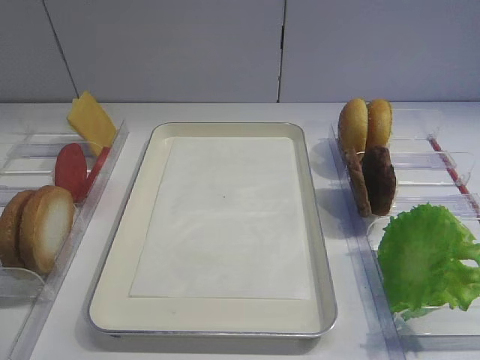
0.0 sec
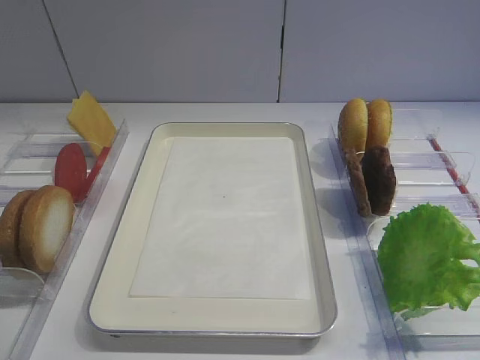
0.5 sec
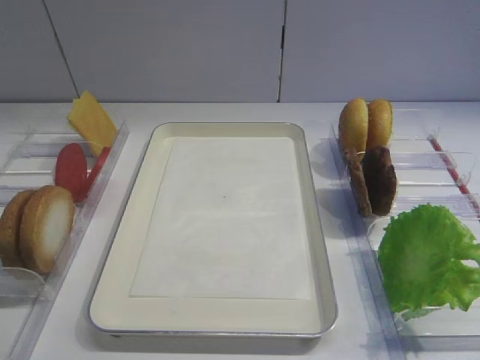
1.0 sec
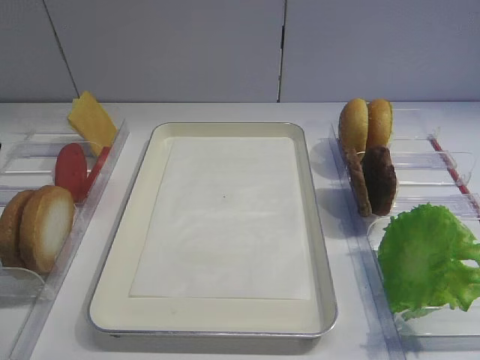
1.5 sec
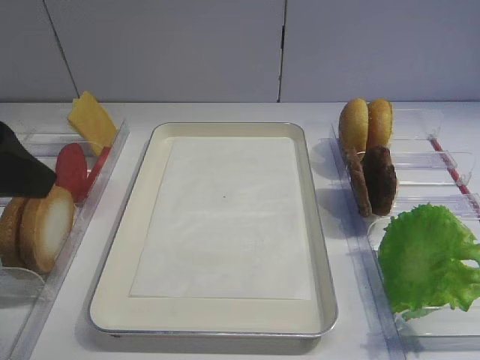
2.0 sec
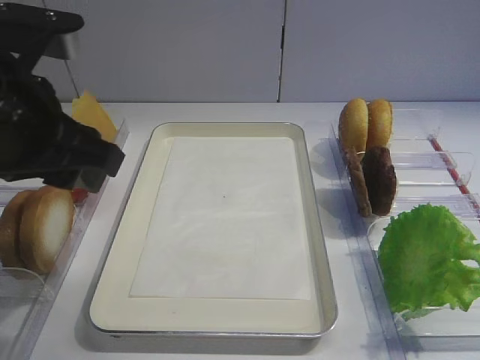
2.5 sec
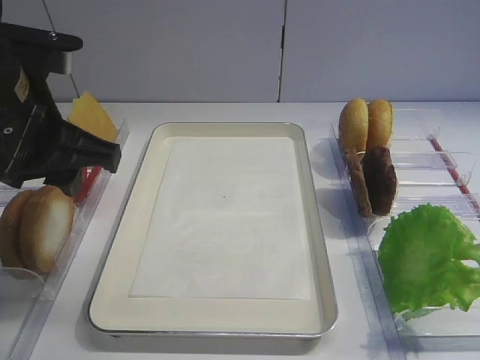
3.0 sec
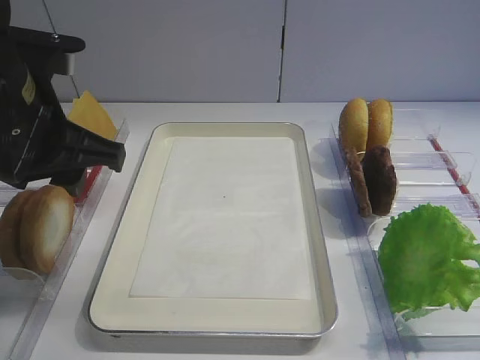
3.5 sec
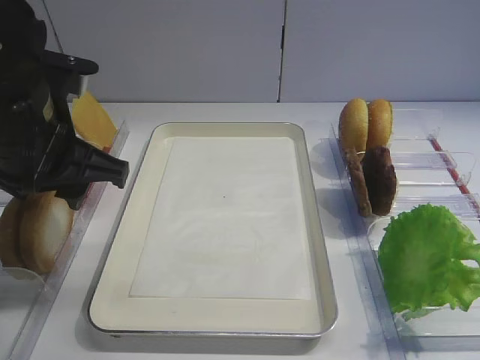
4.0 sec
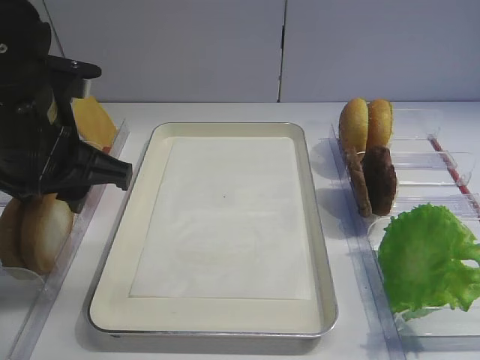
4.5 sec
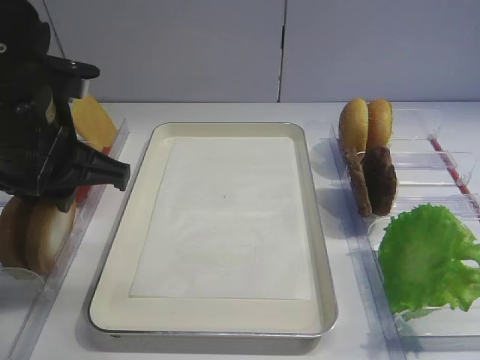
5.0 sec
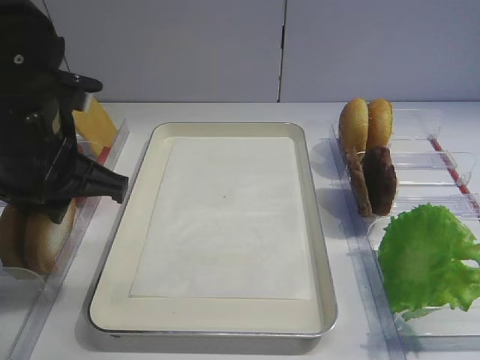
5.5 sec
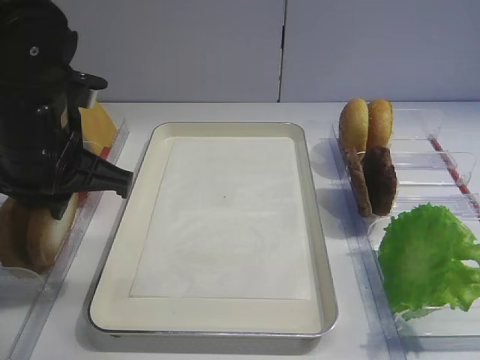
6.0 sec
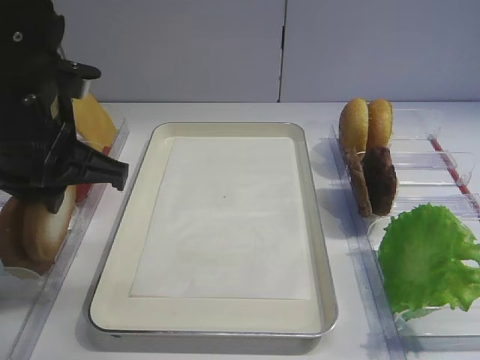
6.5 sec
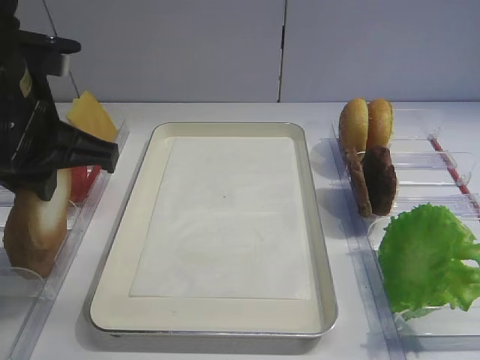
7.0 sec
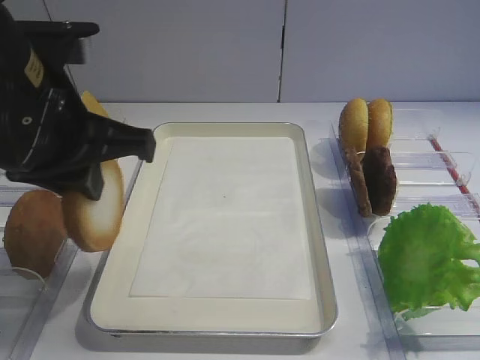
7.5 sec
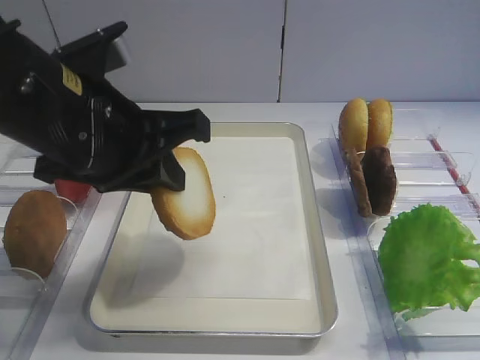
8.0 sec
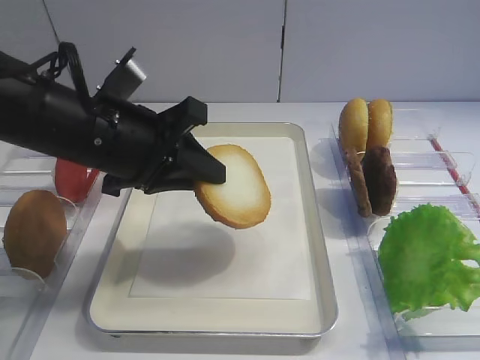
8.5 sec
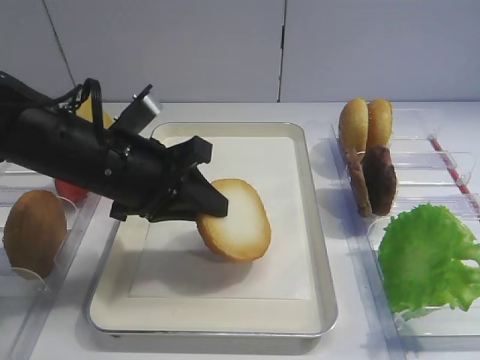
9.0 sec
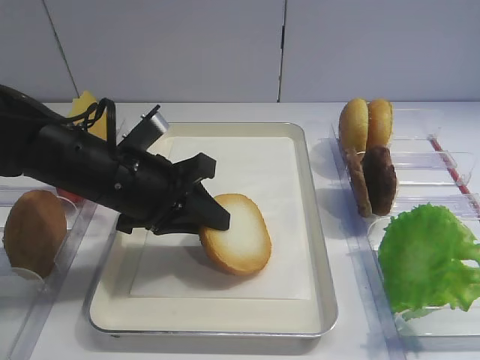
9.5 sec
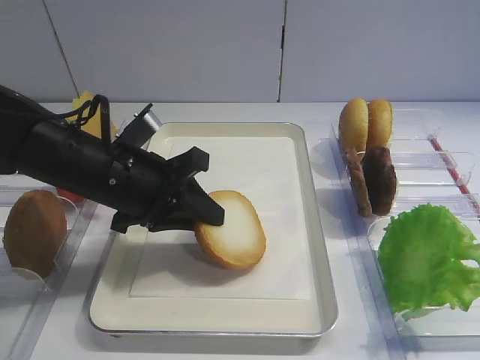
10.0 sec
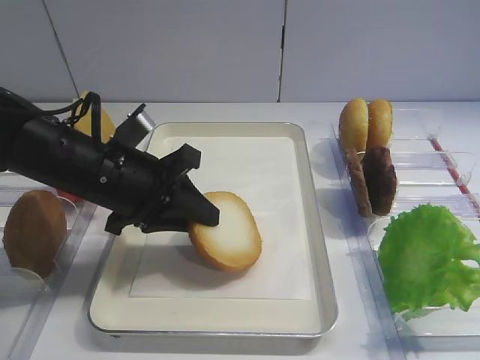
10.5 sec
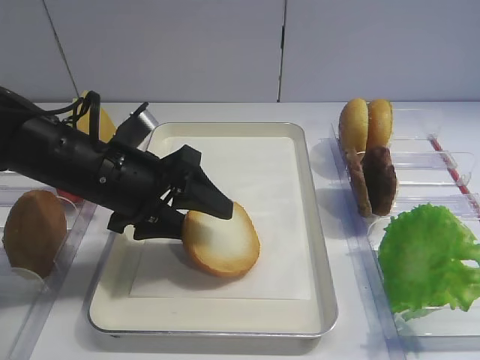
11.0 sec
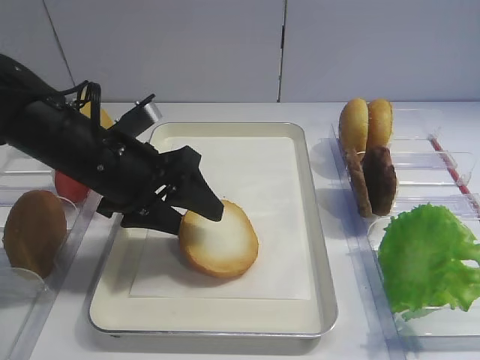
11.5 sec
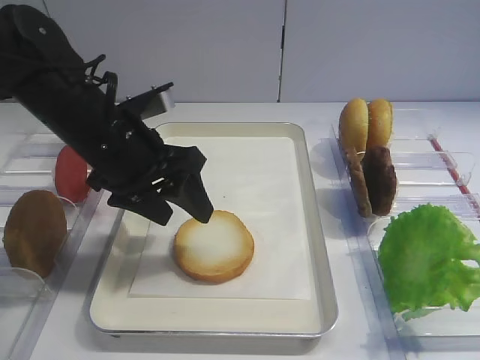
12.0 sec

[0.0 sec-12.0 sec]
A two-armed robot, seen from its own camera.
Step, 0.0 sec to 7.0 sec: Pick up the bread slice with the left gripper.
Step, 7.5 sec to 11.5 sec: Place the bread slice on the tray with the left gripper.
2.0 sec to 4.0 sec: The left gripper moves forward, downward and to the right, about 10 cm.
4.0 sec to 6.0 sec: The left gripper closes its fingers.
6.0 sec to 8.0 sec: The left gripper moves some 5 cm.
8.0 sec to 10.0 sec: The left gripper shifts roughly 10 cm downward and forward.
10.0 sec to 12.0 sec: The left gripper opens.

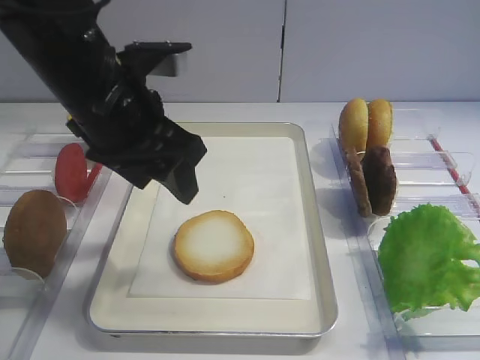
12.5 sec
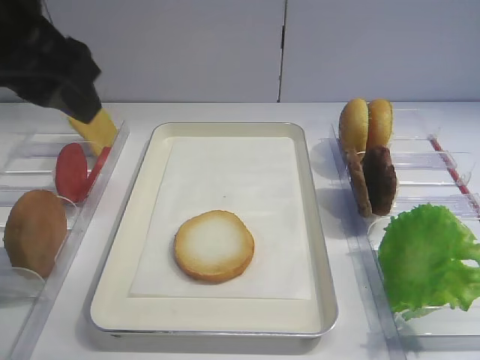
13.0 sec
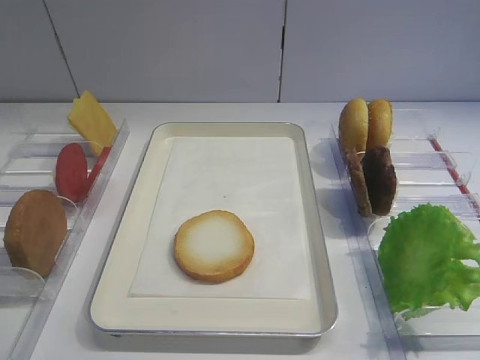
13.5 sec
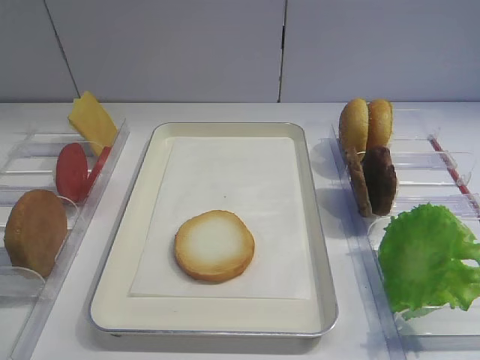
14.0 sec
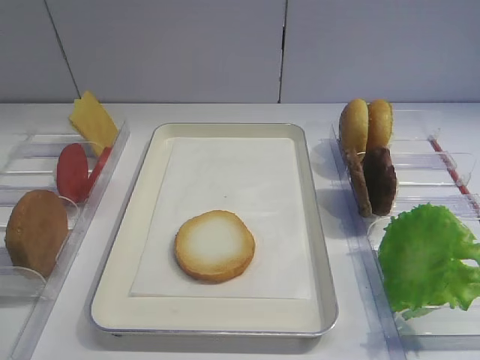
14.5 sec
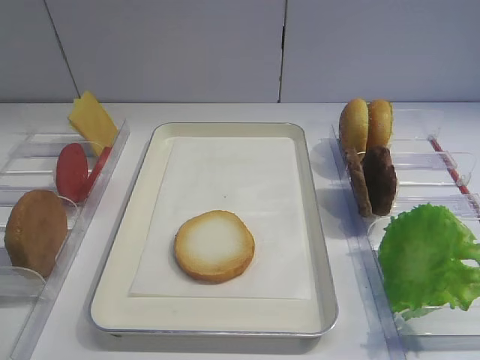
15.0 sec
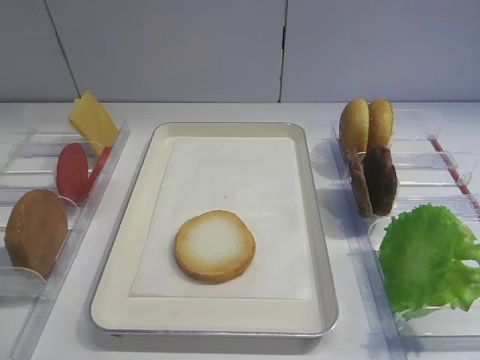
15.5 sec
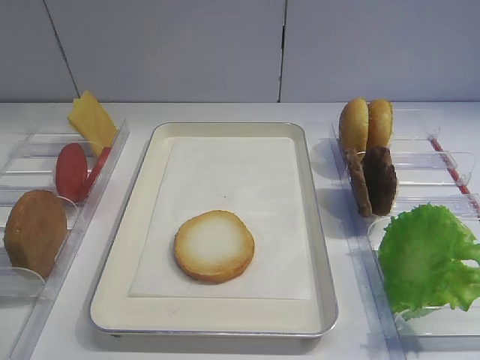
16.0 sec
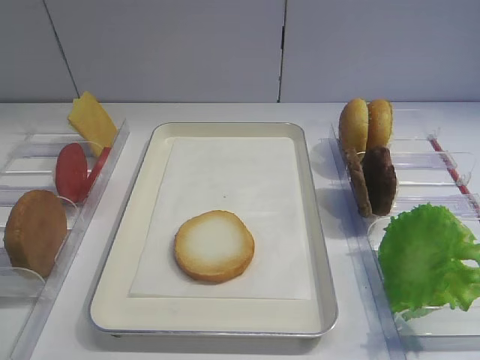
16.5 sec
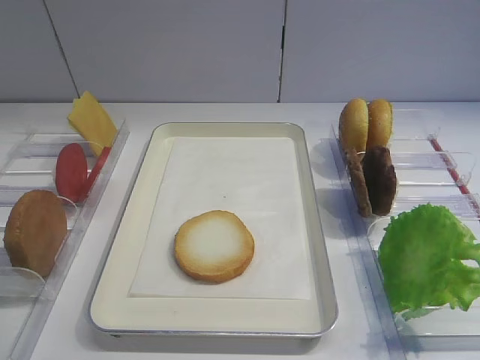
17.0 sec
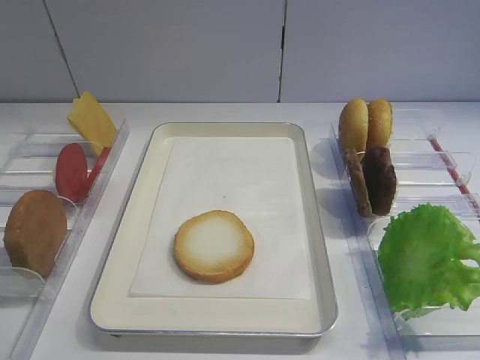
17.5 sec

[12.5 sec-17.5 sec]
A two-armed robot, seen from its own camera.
12.5 sec to 15.0 sec: The left gripper is displaced backward and to the left by roughly 35 cm.

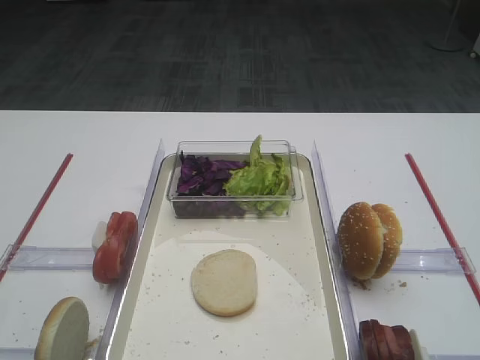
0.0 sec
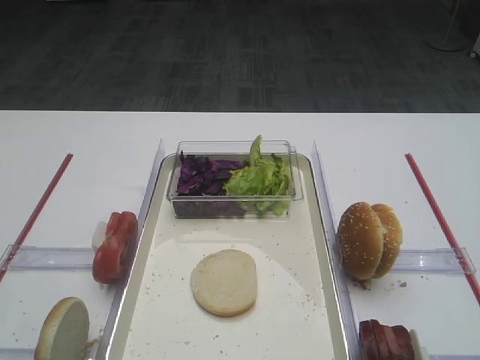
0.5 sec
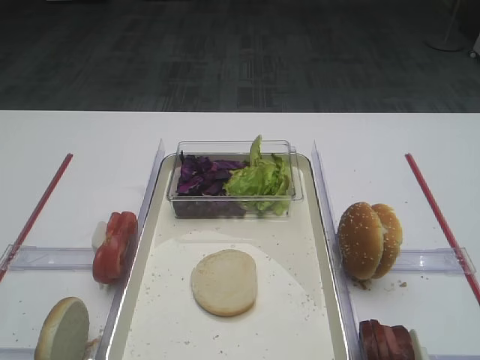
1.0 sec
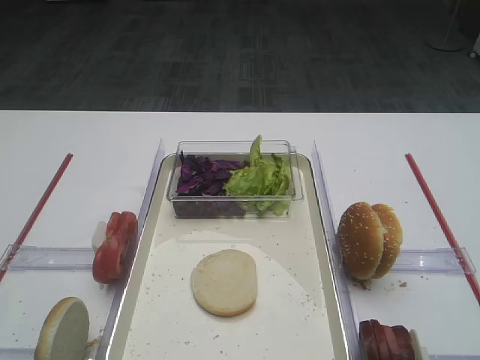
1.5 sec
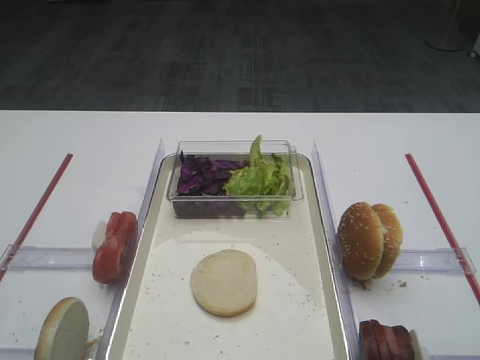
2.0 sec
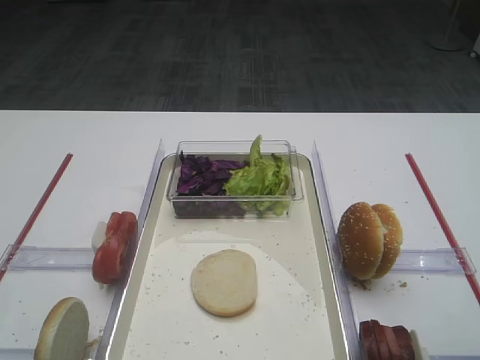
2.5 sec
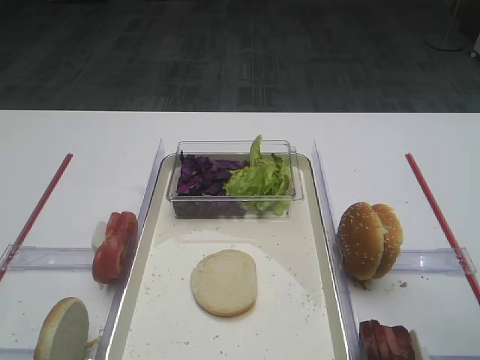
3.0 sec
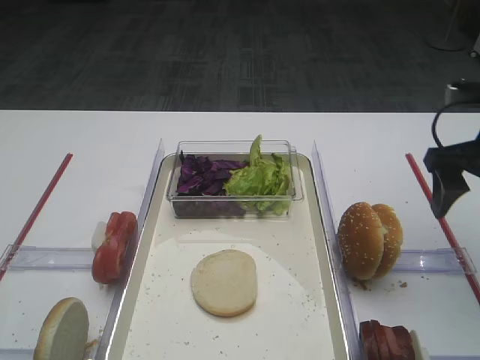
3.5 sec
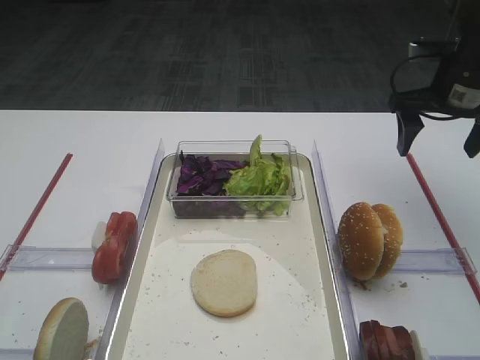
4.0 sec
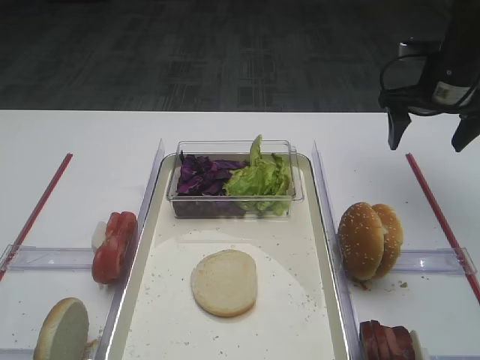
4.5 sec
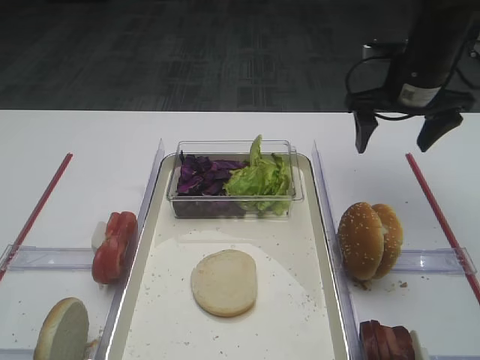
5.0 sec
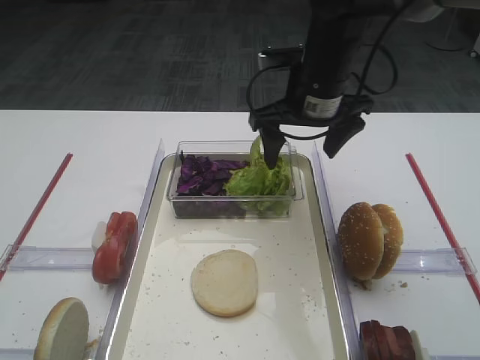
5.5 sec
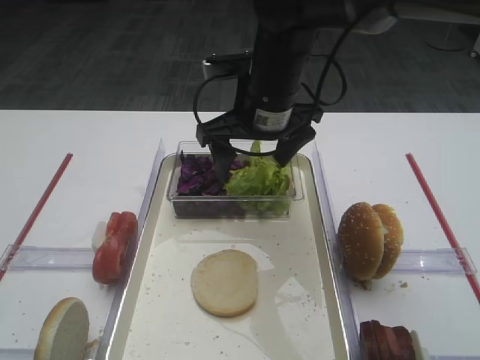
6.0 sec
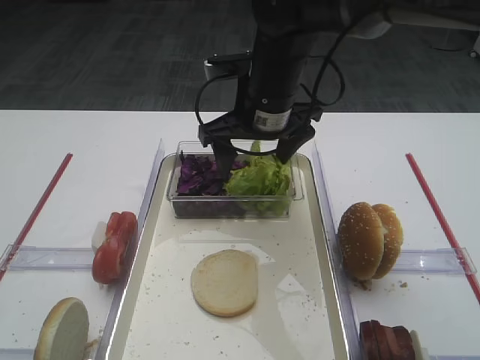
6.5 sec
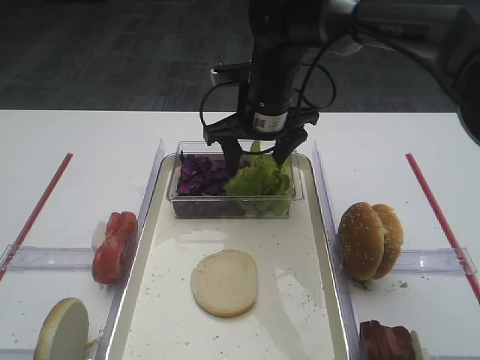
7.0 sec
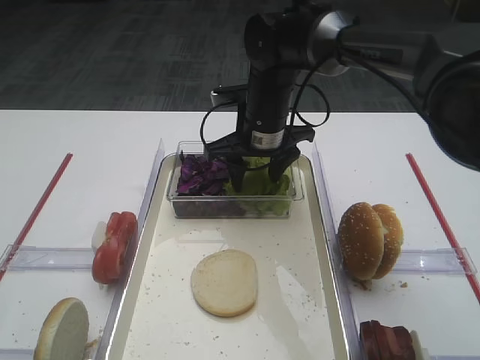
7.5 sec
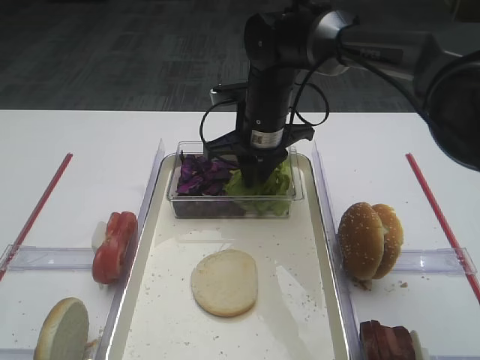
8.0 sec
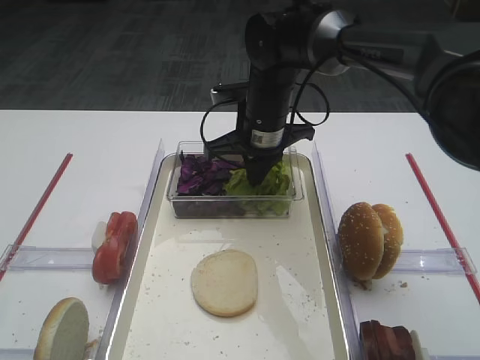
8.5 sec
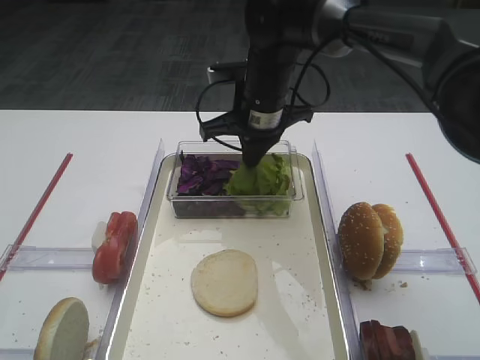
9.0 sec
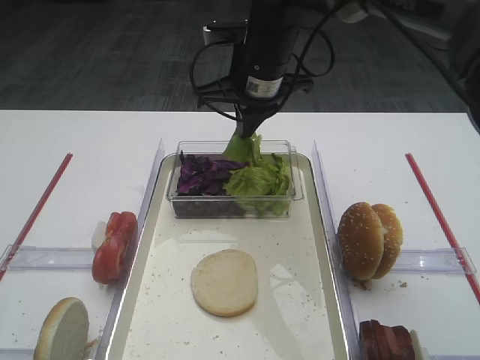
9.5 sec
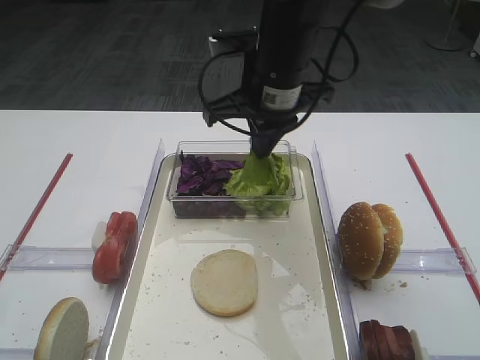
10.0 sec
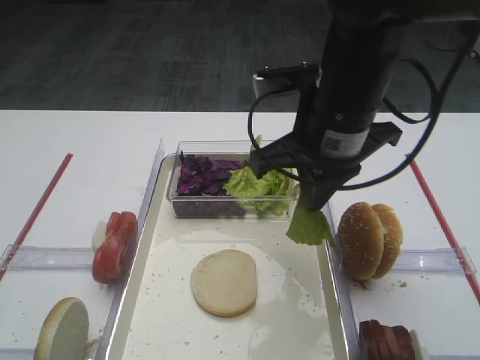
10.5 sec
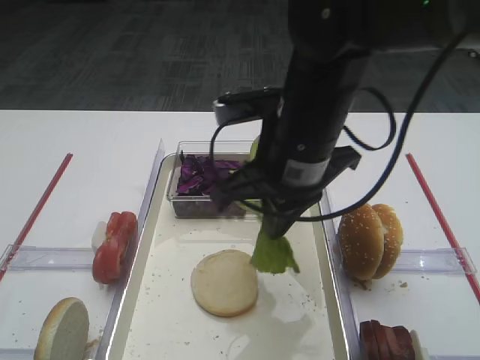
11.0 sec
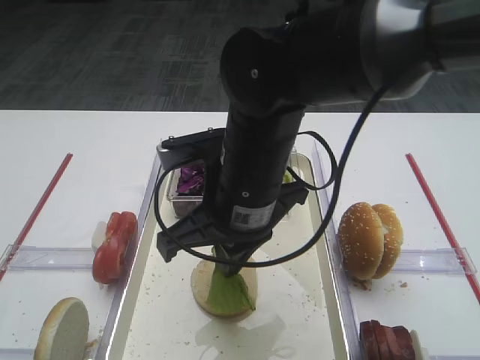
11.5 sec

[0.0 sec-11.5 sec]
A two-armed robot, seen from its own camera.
Step, 0.0 sec to 9.0 sec: Pick up the lettuce leaf with the right gripper.
2.0 sec to 4.0 sec: The right gripper travels forward by some 30 cm.
4.0 sec to 6.0 sec: The right gripper travels to the left by approximately 25 cm.
6.0 sec to 7.5 sec: The right gripper is displaced downward and forward by approximately 10 cm.
7.5 sec to 9.5 sec: The right gripper shifts approximately 5 cm upward, and closes its fingers.
9.5 sec to 11.5 sec: The right gripper moves backward, about 15 cm.
